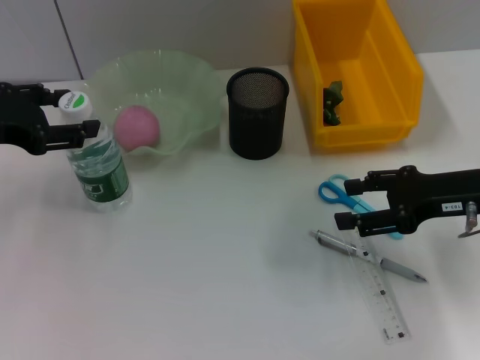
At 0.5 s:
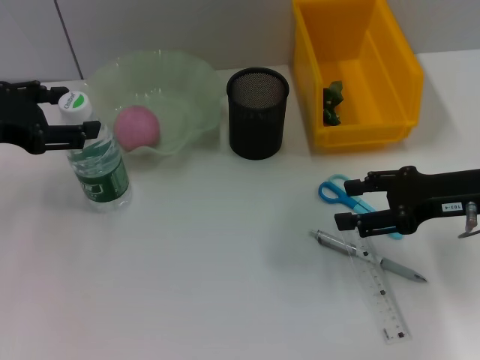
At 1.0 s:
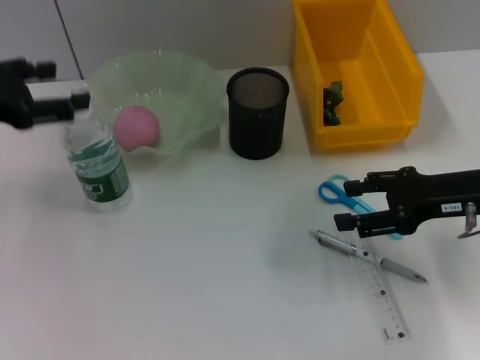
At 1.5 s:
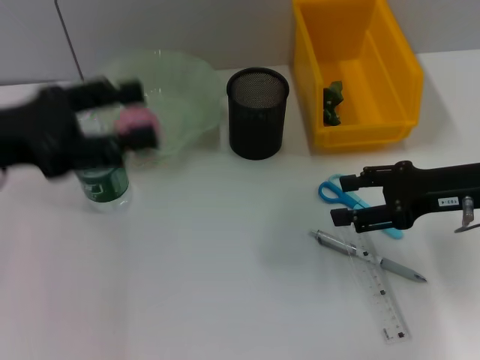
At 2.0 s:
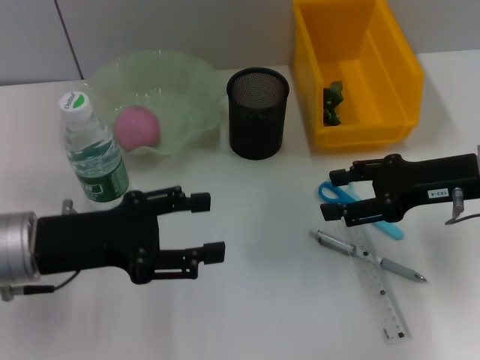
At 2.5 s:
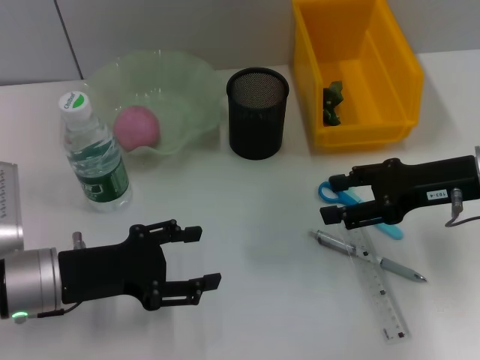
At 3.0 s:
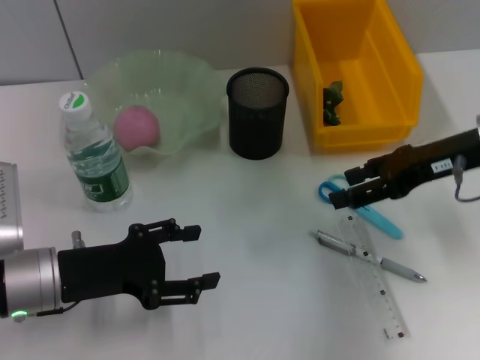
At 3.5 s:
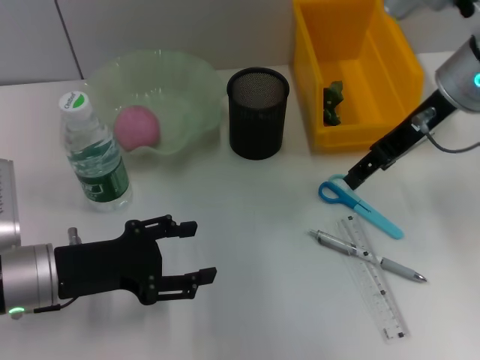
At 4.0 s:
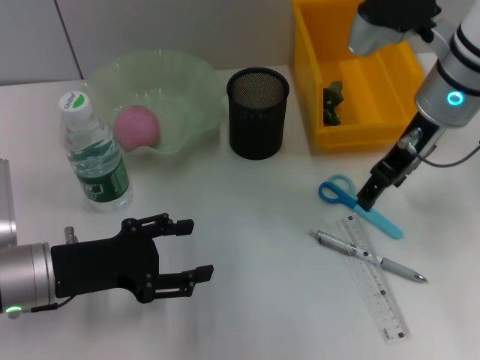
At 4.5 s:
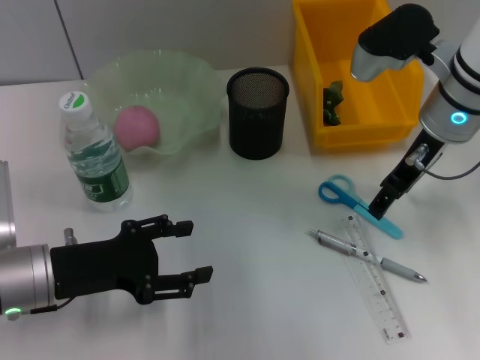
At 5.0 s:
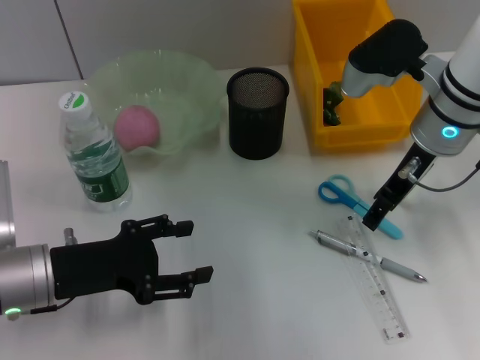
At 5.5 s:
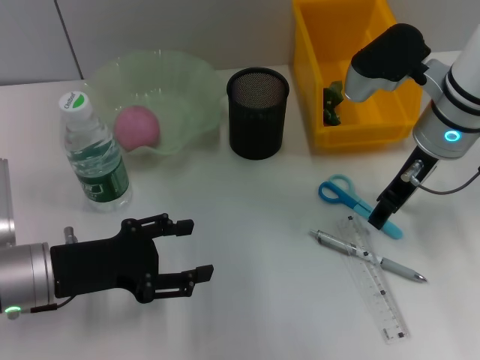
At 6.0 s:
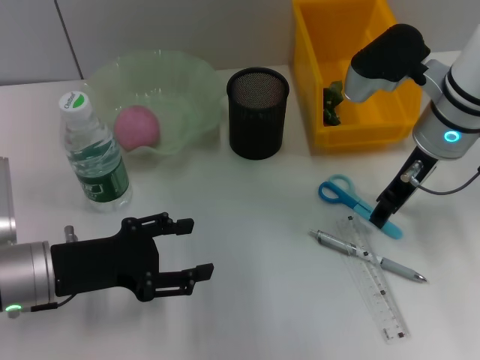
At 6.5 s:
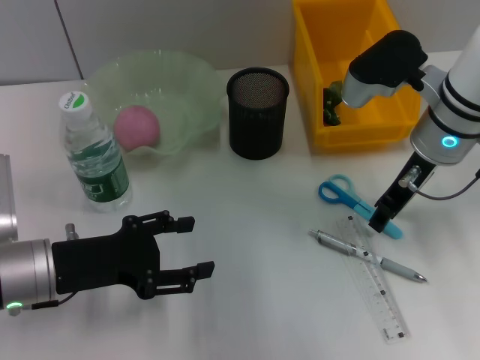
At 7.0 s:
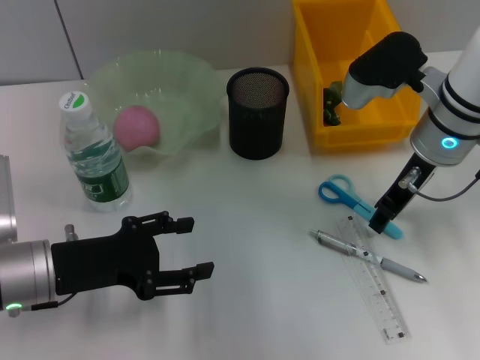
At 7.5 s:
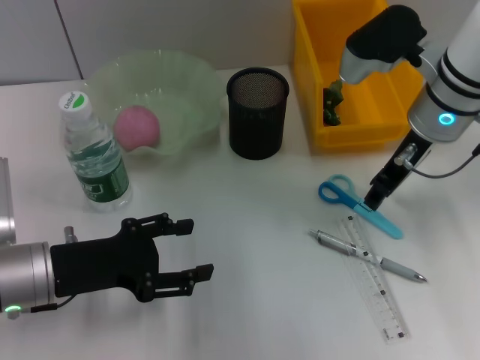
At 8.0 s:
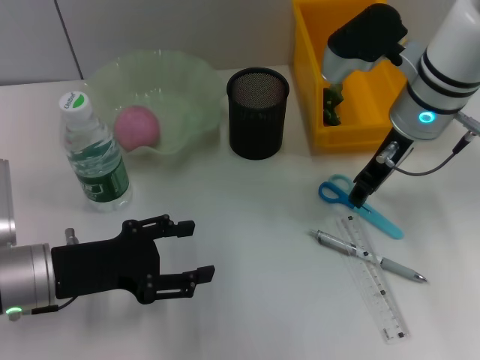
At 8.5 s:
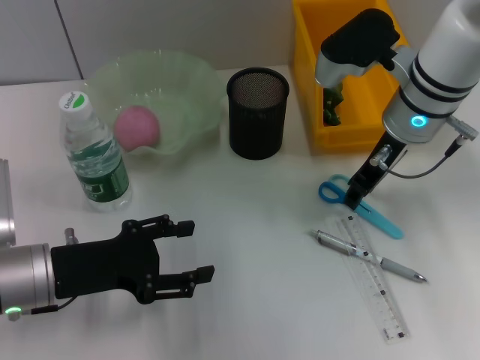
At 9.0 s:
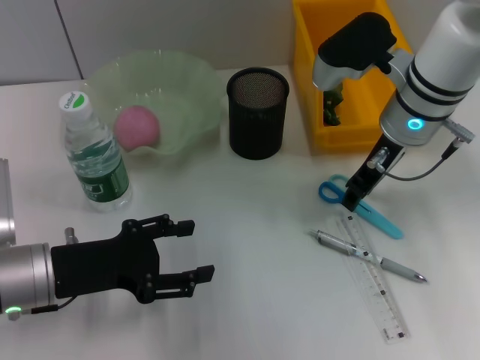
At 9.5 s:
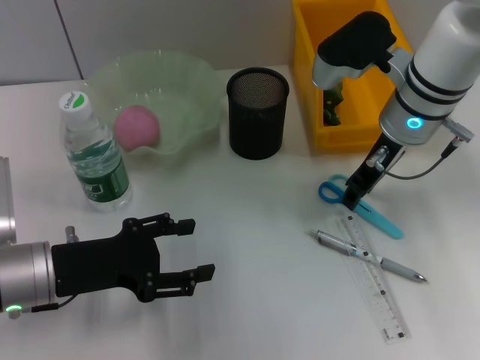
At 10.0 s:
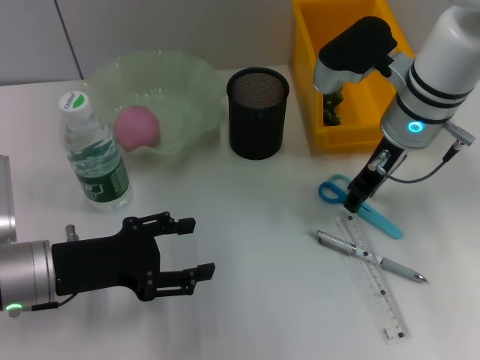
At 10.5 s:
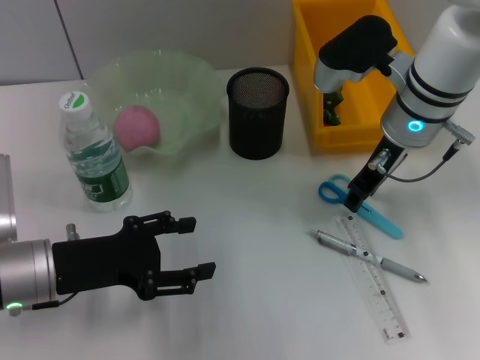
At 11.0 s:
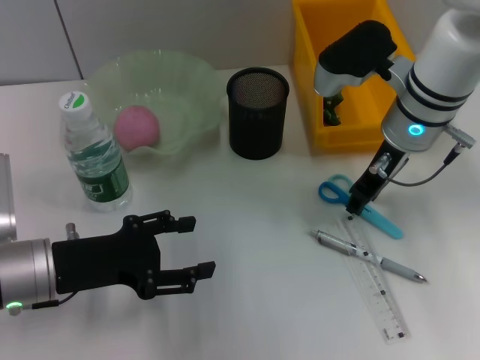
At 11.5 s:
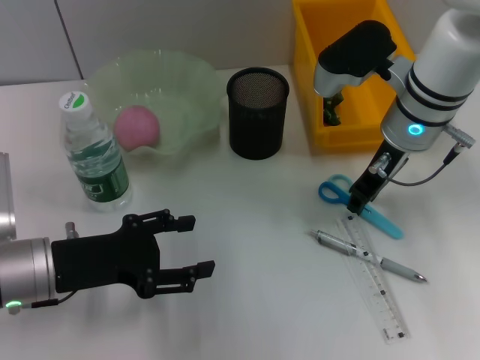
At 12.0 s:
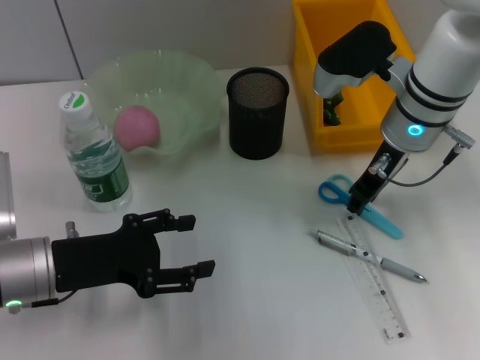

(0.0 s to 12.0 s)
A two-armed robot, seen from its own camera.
0.0 s - 2.0 s: The left gripper travels backward, to the right and downward by about 10 cm.
2.0 s - 4.0 s: The right gripper is displaced to the left, forward and upward by about 15 cm. The left gripper shifts roughly 5 cm downward.
4.0 s - 6.0 s: The right gripper closes up.
6.0 s - 10.0 s: The grippers stay close to where they were, moving slightly.
10.0 s - 12.0 s: Both grippers stay put.

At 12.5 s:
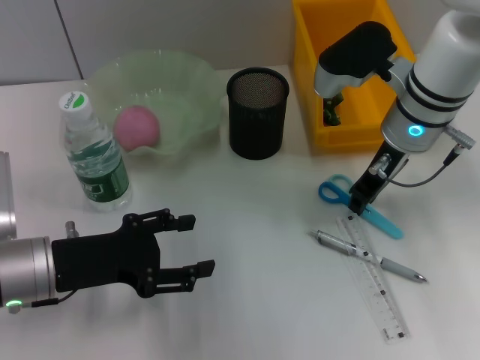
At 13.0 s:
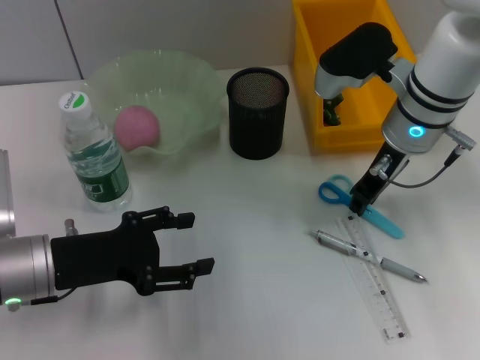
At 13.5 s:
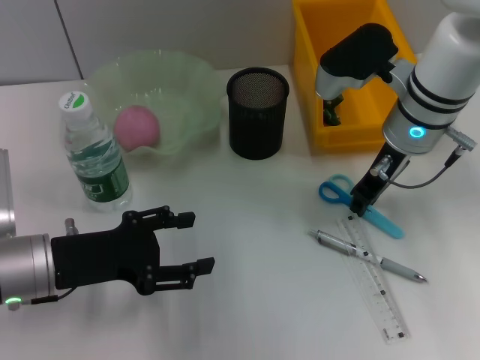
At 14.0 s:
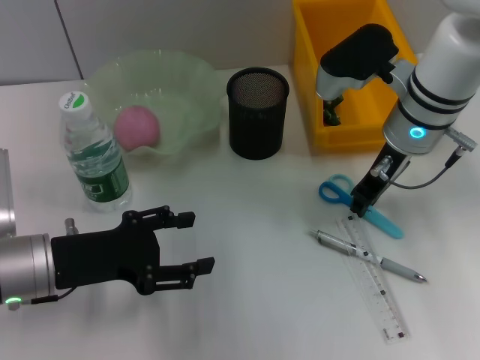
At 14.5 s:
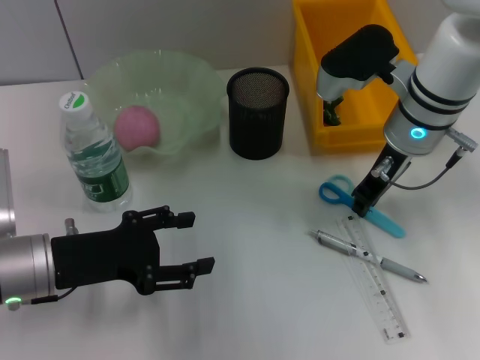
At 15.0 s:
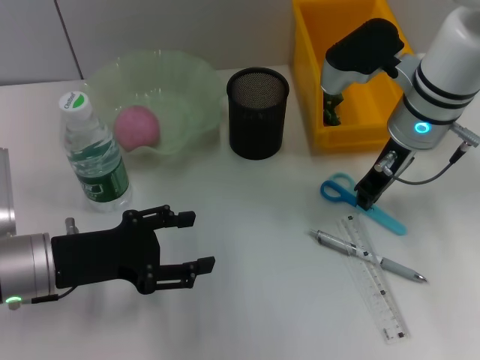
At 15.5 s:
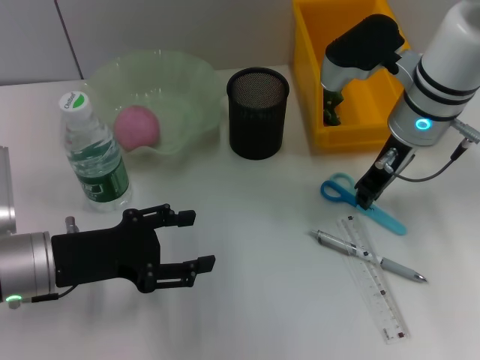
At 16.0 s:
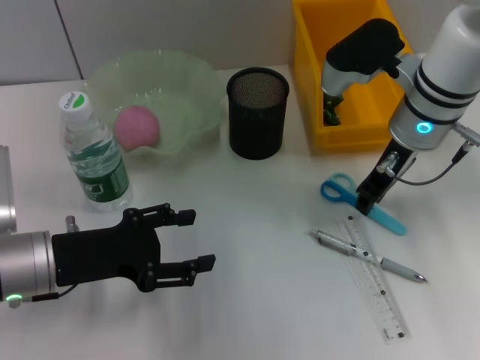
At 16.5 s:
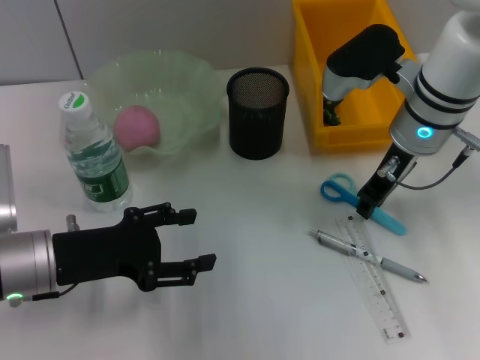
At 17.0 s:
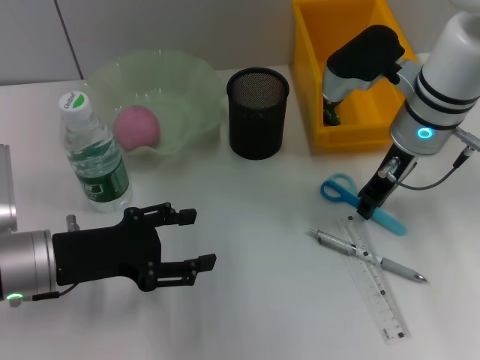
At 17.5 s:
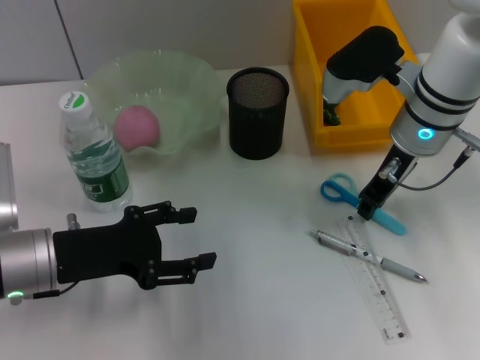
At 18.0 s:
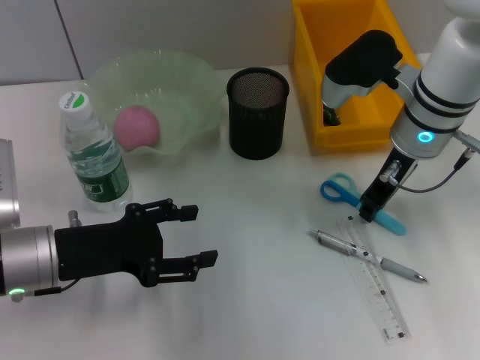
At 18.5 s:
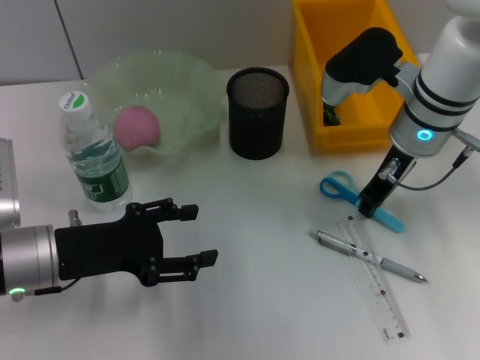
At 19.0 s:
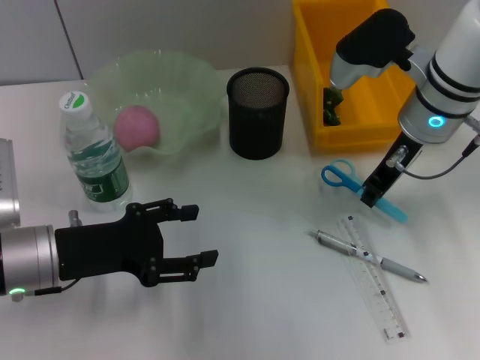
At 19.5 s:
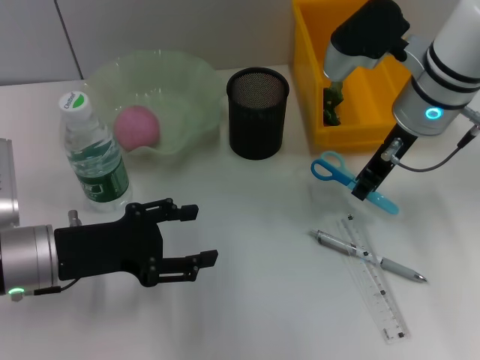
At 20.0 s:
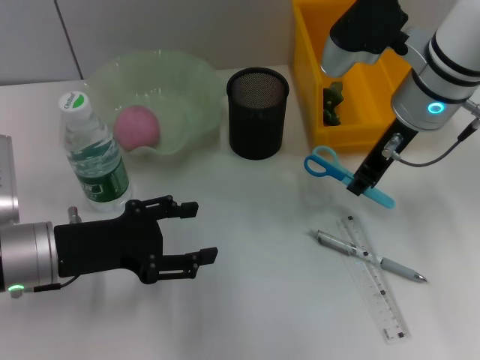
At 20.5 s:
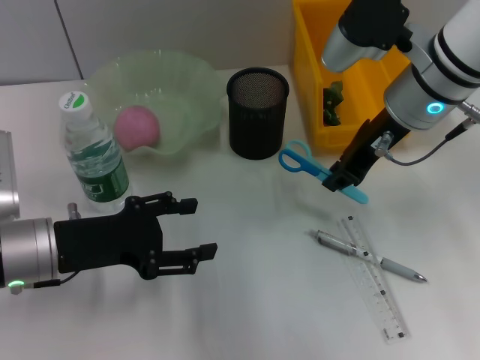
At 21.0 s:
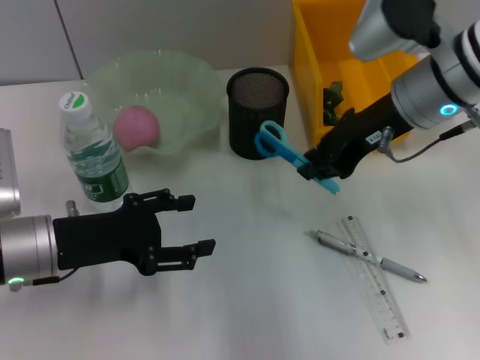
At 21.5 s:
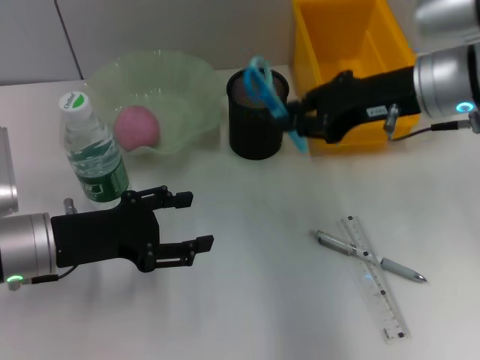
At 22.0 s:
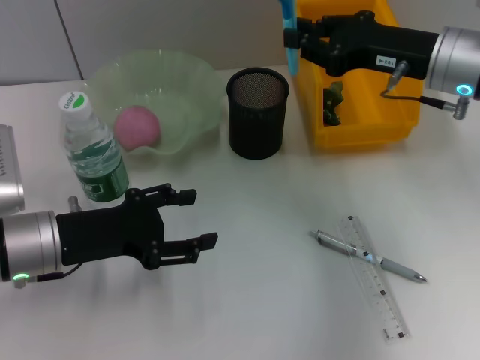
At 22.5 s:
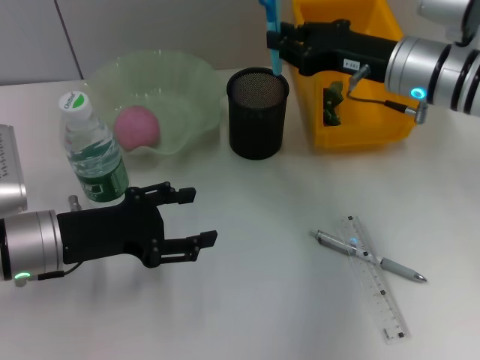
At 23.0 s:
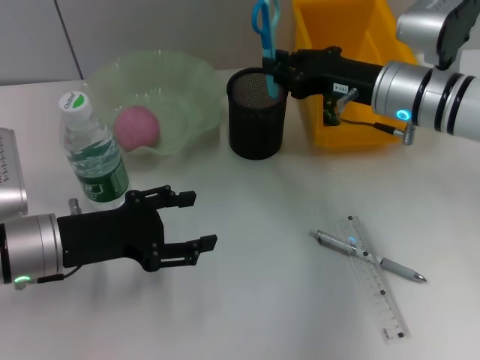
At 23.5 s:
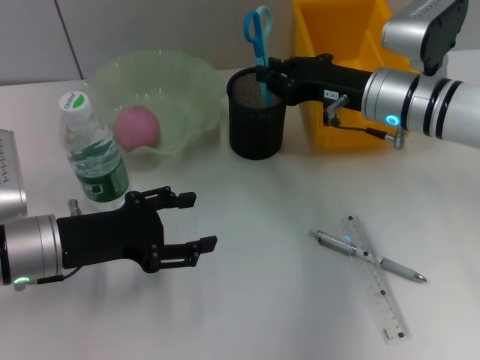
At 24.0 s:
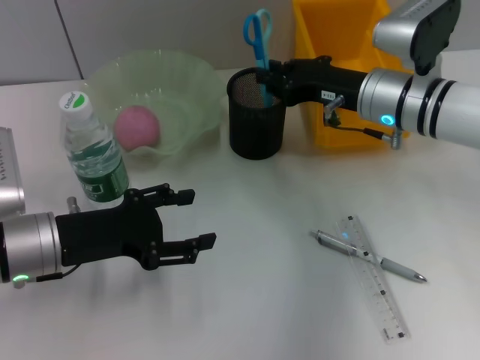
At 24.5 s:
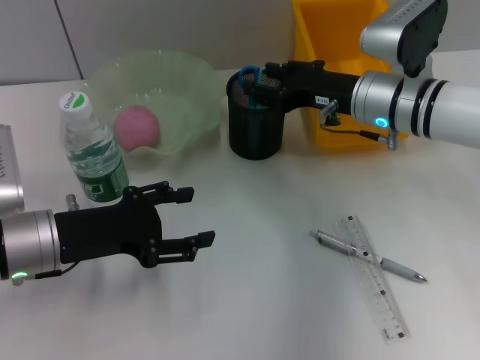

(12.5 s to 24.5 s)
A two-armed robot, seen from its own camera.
Step, 12.5 s - 17.5 s: Grab the blue scissors with the right hand.
12.5 s - 18.5 s: The two grippers keep their place.
20.5 s - 22.5 s: The right gripper changes place by about 5 cm.
22.5 s - 24.5 s: The right gripper opens.

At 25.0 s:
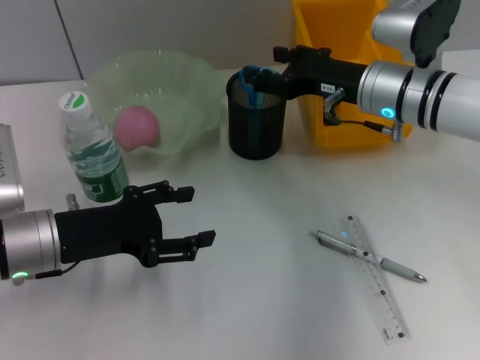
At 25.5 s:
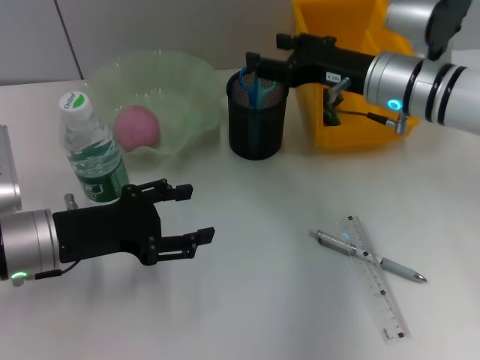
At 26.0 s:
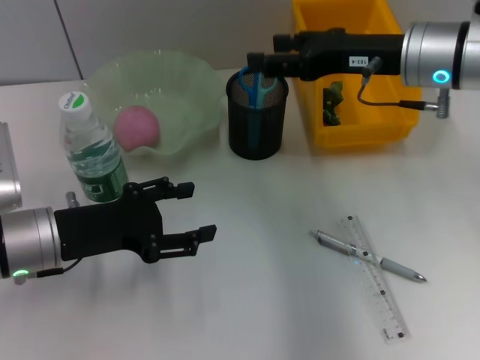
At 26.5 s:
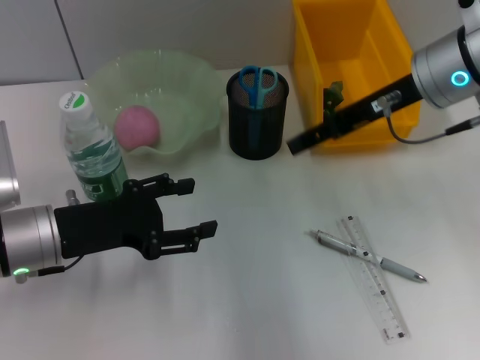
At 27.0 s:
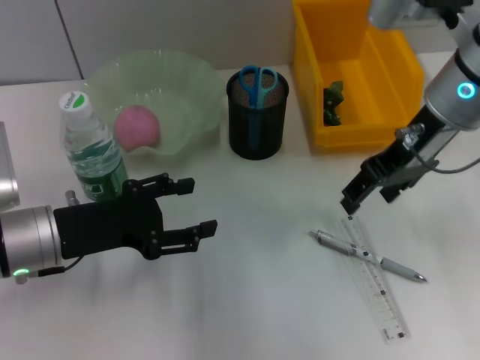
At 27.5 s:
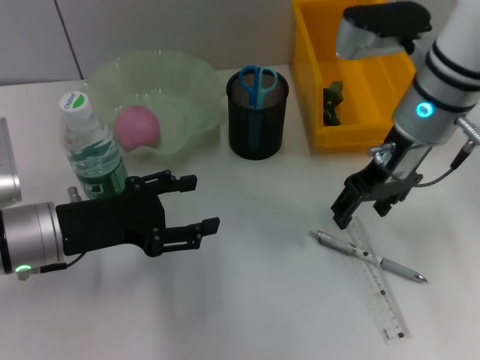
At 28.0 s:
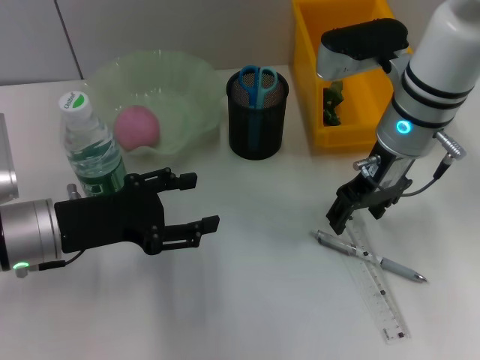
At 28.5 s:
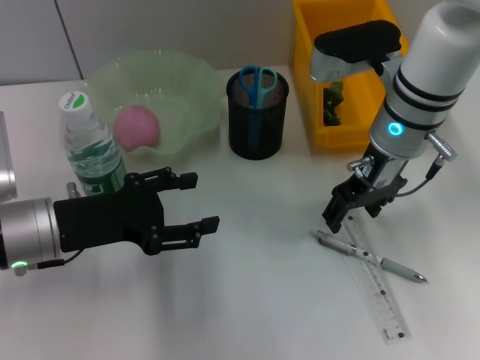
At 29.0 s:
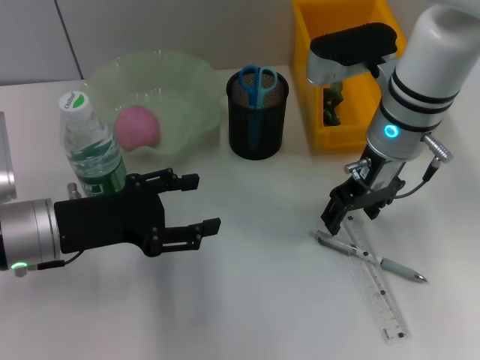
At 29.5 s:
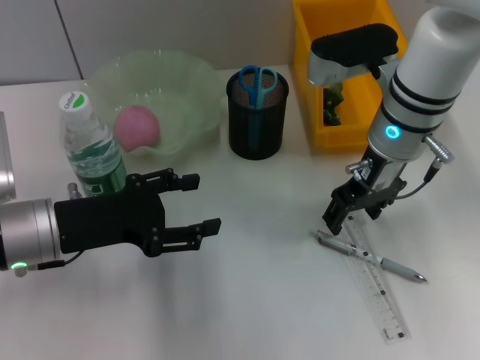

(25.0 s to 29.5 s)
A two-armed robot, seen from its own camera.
25.0 s - 27.0 s: The right gripper is displaced upward by about 10 cm.
27.0 s - 29.5 s: The right gripper heads downward, covering about 5 cm.
